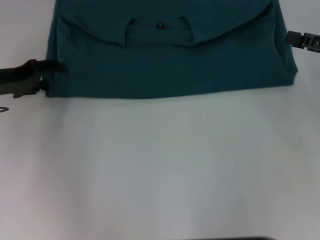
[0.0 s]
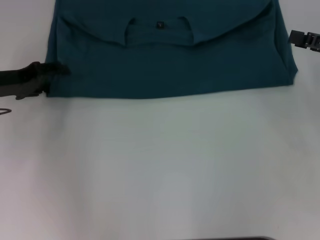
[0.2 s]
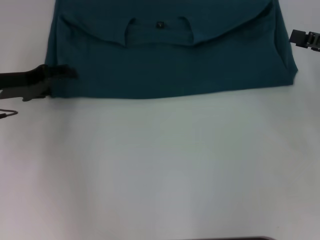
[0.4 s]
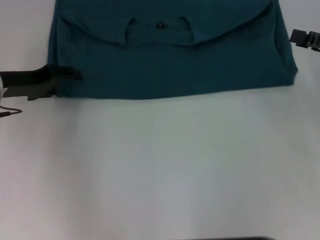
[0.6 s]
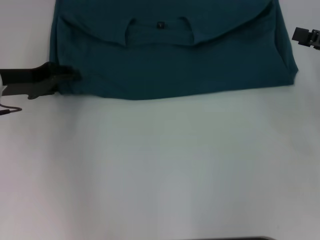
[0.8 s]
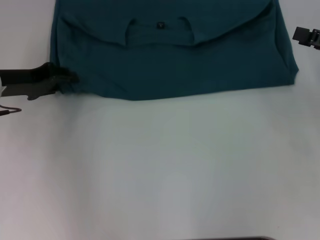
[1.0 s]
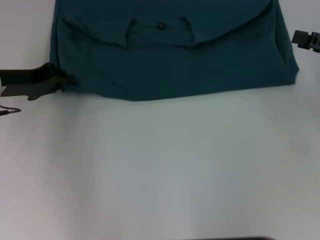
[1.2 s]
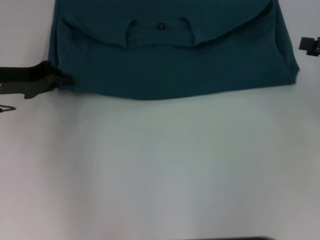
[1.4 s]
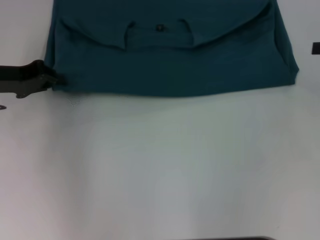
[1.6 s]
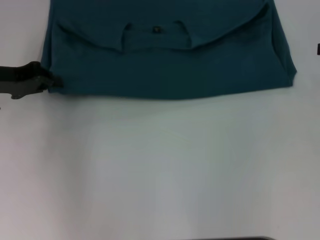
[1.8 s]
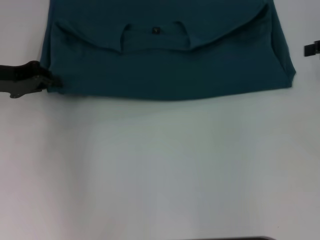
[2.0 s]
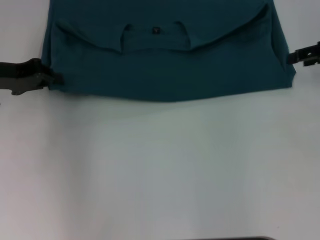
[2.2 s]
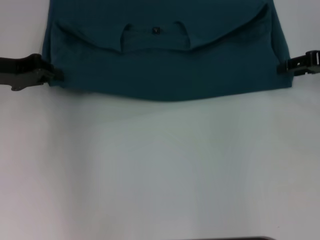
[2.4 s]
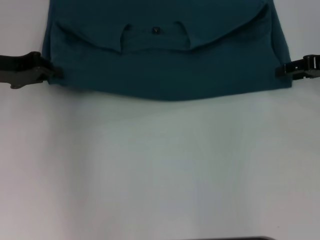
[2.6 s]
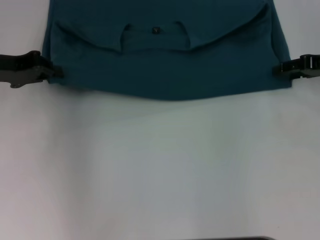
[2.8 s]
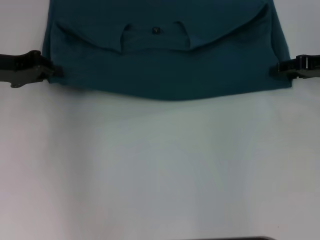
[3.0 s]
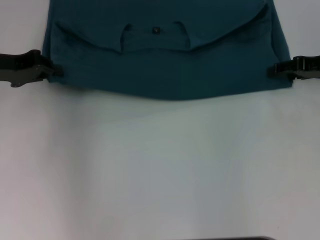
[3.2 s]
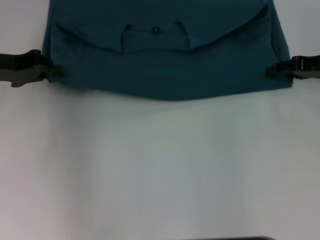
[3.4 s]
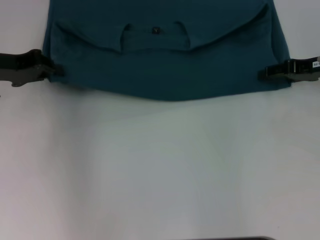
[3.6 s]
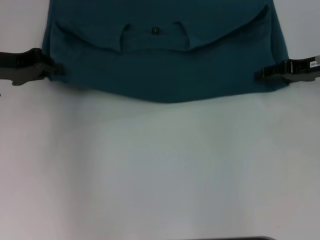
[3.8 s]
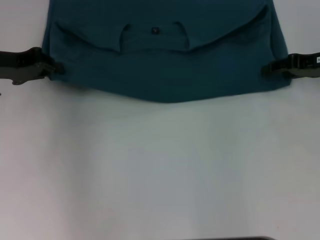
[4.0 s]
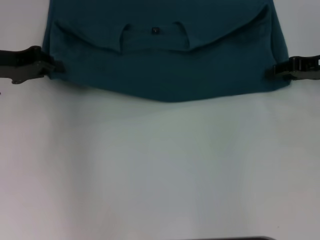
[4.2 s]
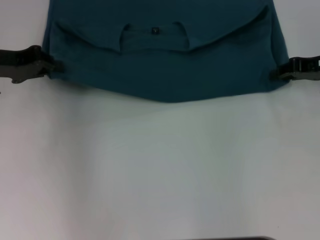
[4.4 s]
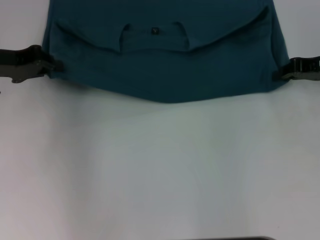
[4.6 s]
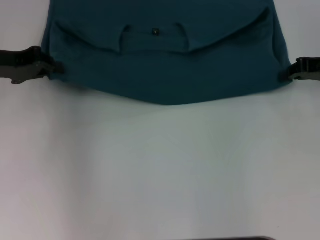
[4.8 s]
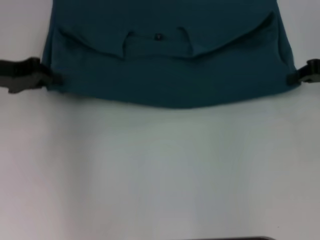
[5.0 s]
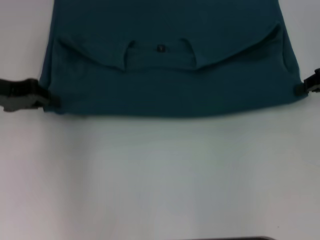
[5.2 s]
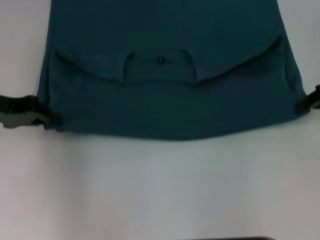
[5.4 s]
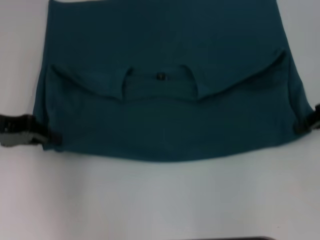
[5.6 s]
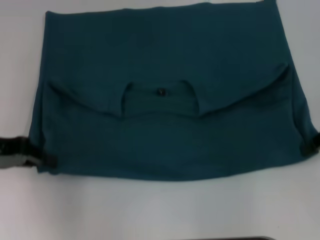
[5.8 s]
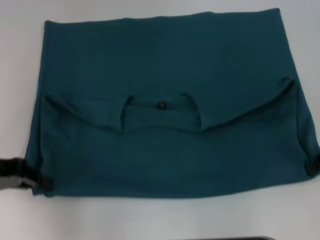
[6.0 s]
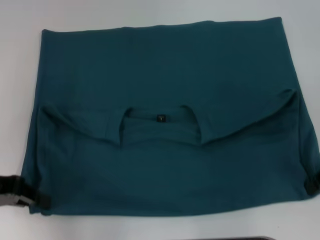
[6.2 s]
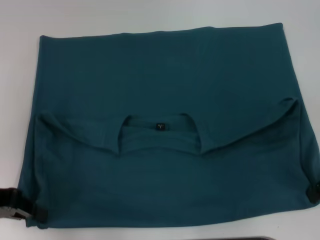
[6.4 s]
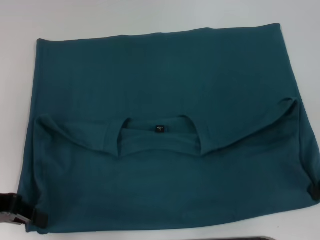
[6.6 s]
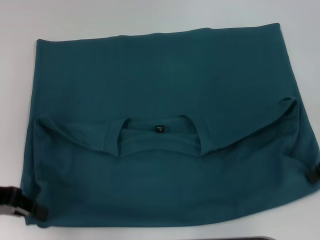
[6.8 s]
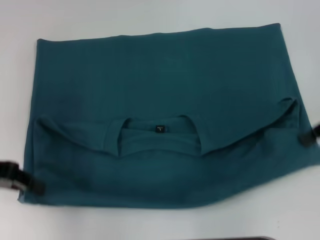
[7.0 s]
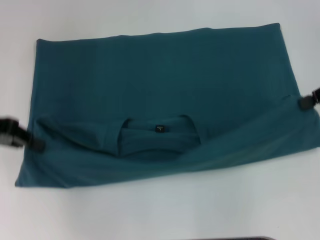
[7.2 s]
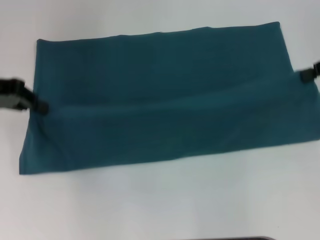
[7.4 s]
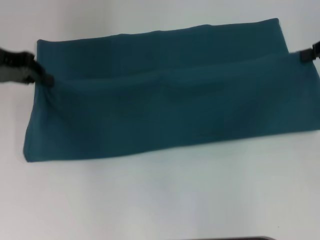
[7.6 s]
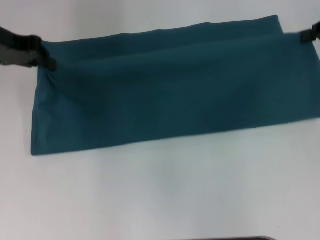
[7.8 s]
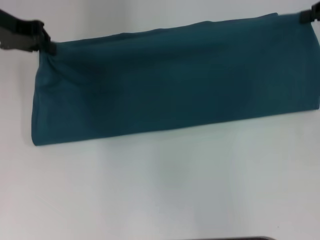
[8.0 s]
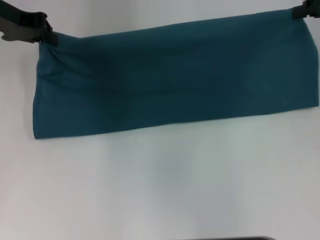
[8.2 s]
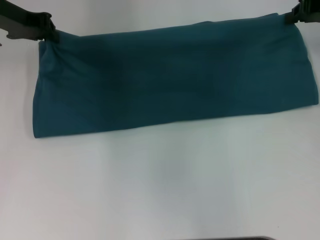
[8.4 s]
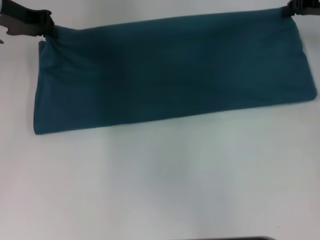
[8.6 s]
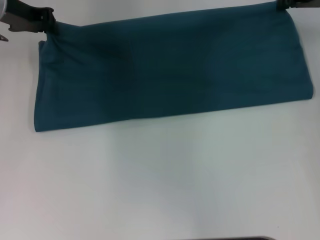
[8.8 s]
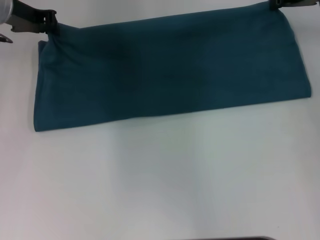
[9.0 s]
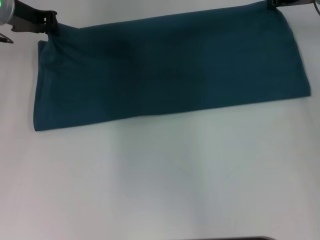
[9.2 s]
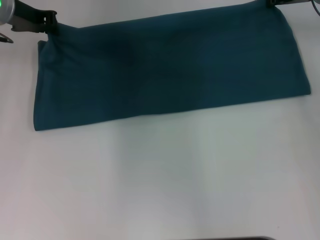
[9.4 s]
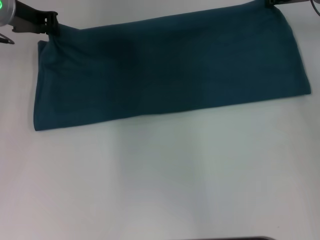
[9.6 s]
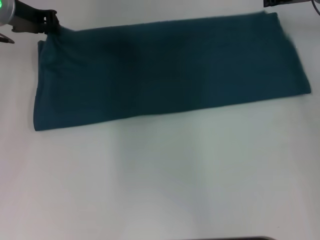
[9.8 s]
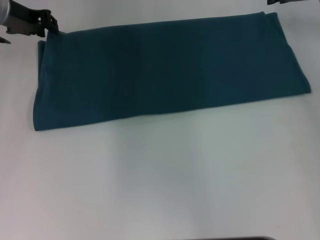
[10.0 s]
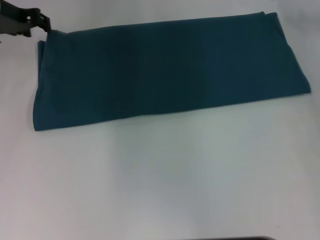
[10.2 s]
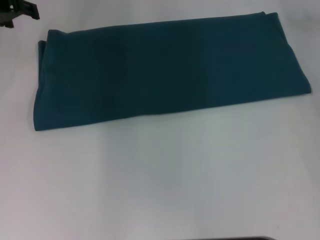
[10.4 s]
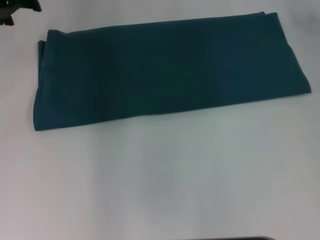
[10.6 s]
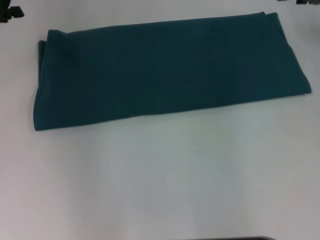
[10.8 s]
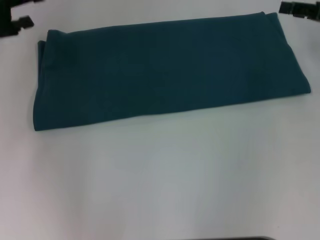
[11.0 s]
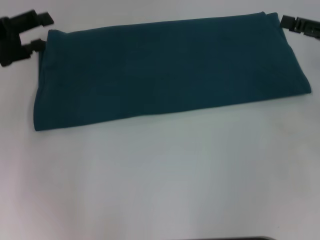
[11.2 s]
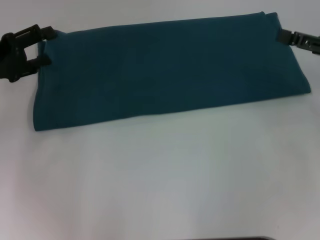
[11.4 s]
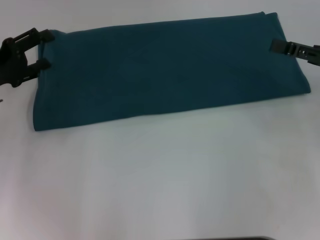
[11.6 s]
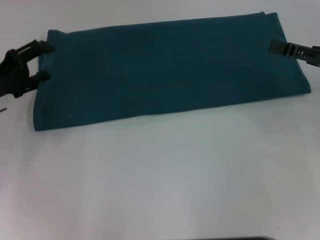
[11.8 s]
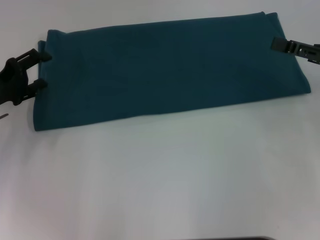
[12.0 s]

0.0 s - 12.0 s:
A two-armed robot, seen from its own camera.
Step, 0.0 s - 6.4 s: Pull the clothes with your left hand.
Step, 0.0 s - 6.4 s: Pull the clothes with your right hand.
Step, 6.6 s - 10.2 s: Fold the clothes to the right.
0.0 s - 1.6 s: The left gripper closes its fingers. Meanwhile the right gripper ends up roughly 5 cm from where it was.
1.6 s - 3.0 s: The right gripper is displaced to the left by roughly 5 cm.
3.0 s - 4.4 s: The grippers make only small movements.
4.4 s - 6.0 s: Both grippers travel together backward, roughly 10 cm.
6.0 s - 7.6 s: The two grippers go roughly 10 cm forward and upward.
7.6 s - 9.0 s: The left gripper heads forward, covering roughly 5 cm. Meanwhile the right gripper shifts some 10 cm forward and to the left.
9.0 s - 10.4 s: The left gripper opens up; the right gripper opens.
10.4 s - 12.0 s: The left gripper shifts some 20 cm backward and downward, and opens up. Meanwhile the right gripper heads backward, covering roughly 15 cm.

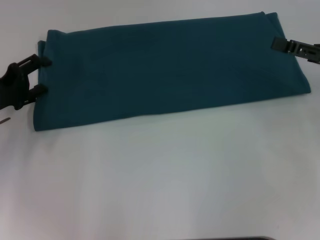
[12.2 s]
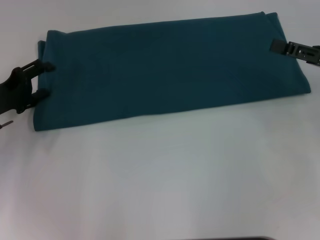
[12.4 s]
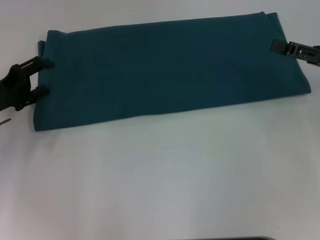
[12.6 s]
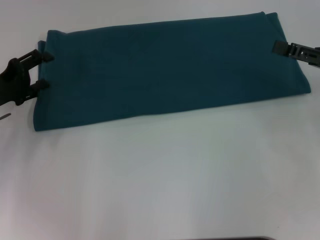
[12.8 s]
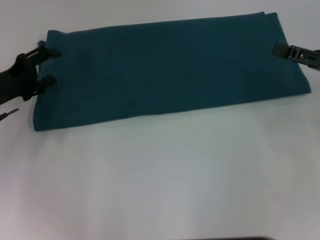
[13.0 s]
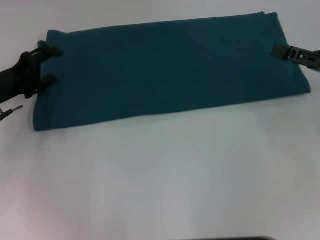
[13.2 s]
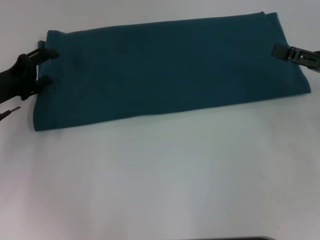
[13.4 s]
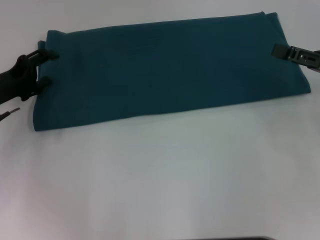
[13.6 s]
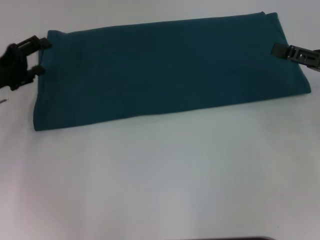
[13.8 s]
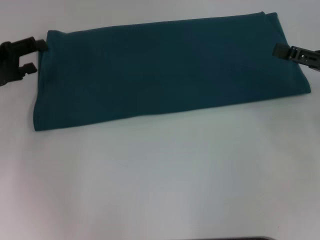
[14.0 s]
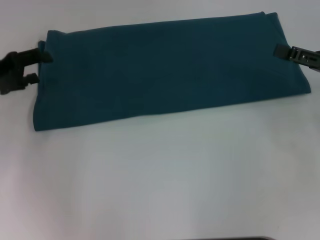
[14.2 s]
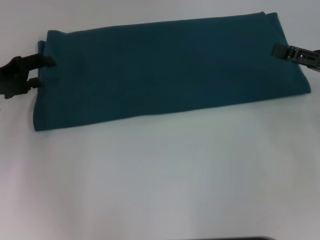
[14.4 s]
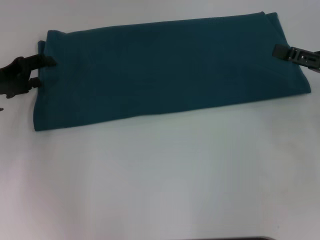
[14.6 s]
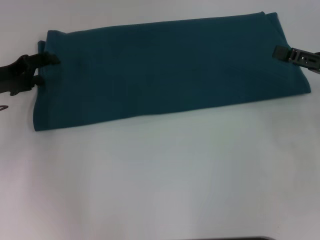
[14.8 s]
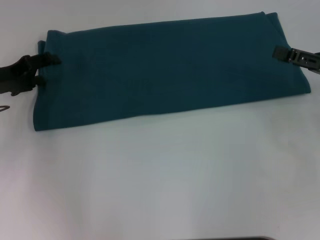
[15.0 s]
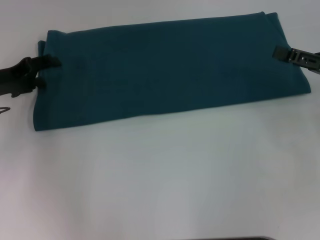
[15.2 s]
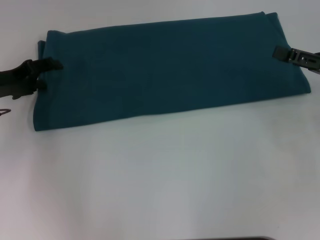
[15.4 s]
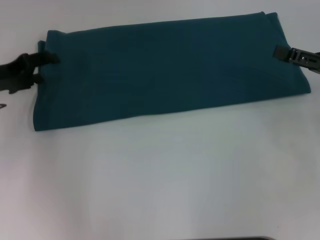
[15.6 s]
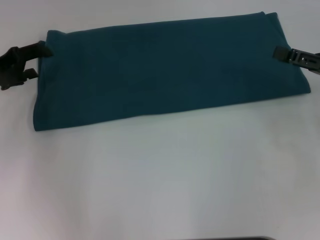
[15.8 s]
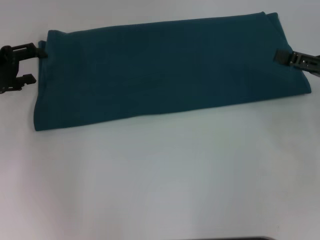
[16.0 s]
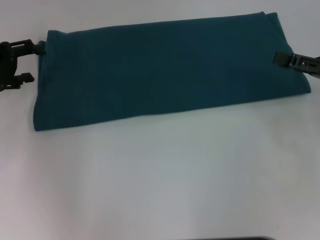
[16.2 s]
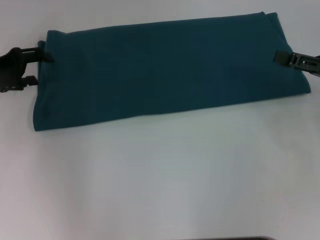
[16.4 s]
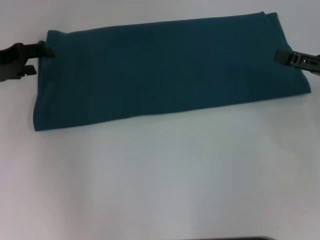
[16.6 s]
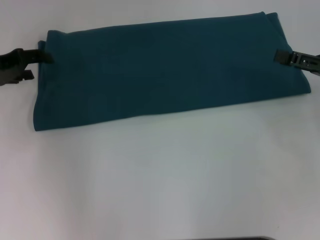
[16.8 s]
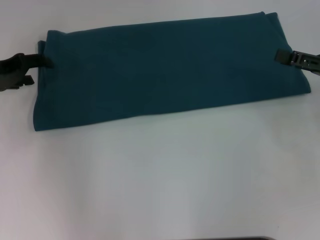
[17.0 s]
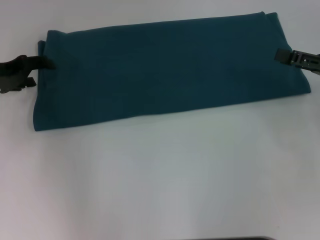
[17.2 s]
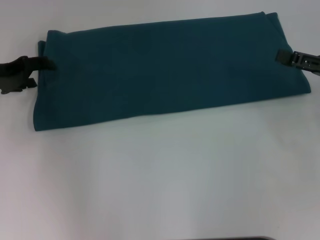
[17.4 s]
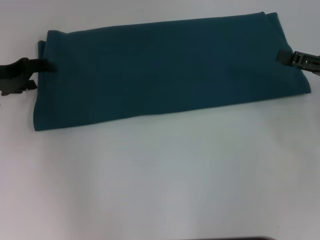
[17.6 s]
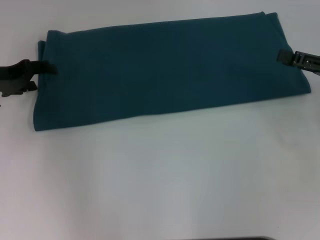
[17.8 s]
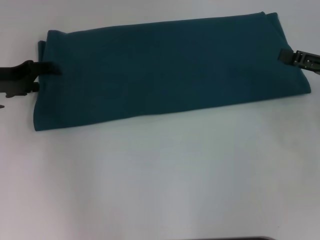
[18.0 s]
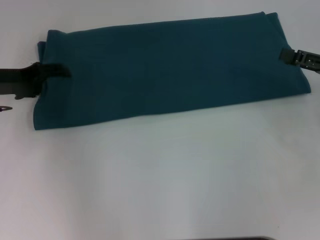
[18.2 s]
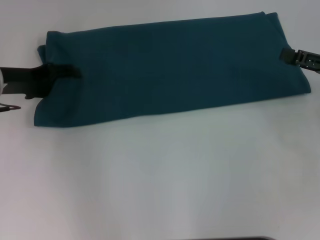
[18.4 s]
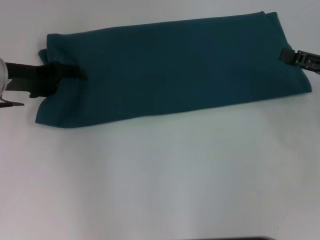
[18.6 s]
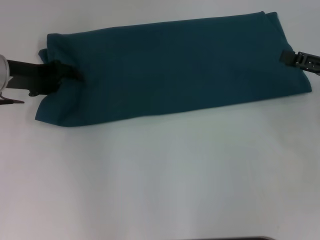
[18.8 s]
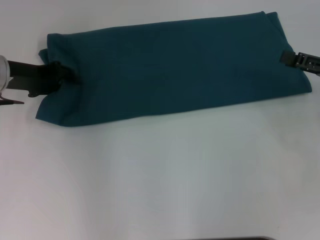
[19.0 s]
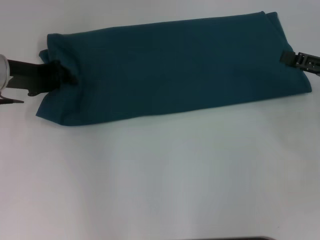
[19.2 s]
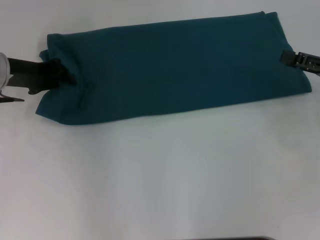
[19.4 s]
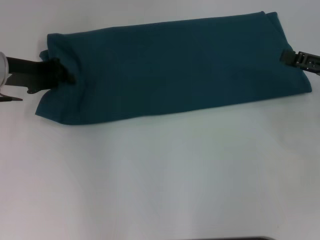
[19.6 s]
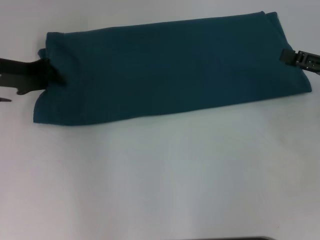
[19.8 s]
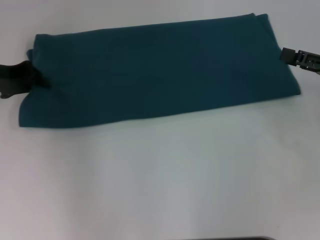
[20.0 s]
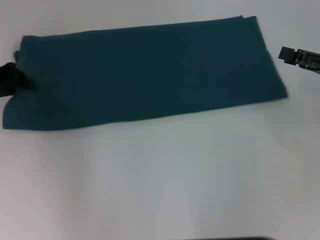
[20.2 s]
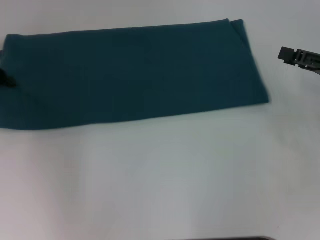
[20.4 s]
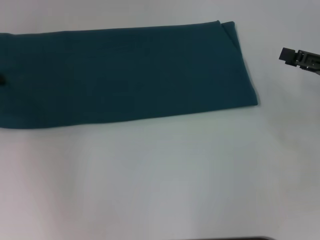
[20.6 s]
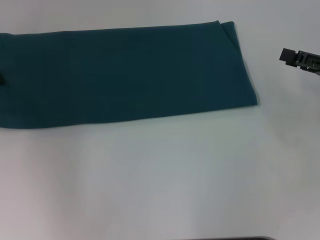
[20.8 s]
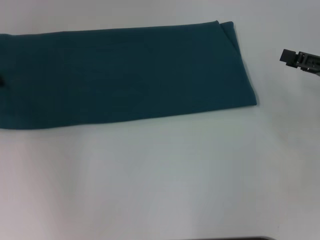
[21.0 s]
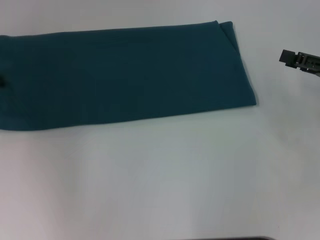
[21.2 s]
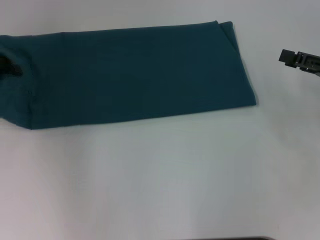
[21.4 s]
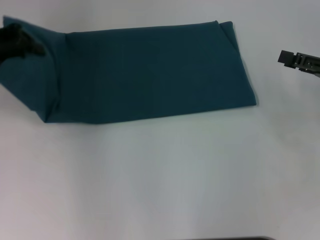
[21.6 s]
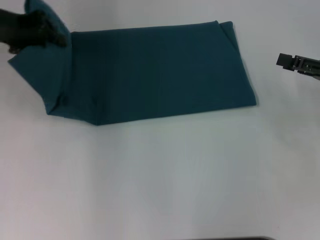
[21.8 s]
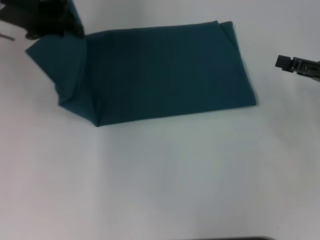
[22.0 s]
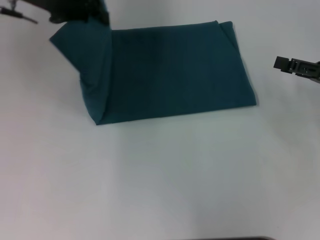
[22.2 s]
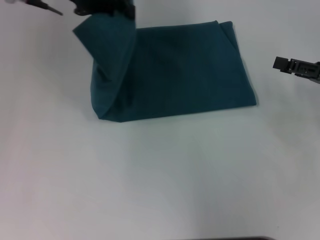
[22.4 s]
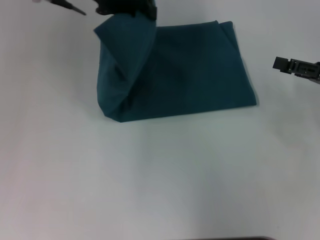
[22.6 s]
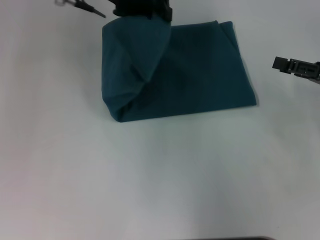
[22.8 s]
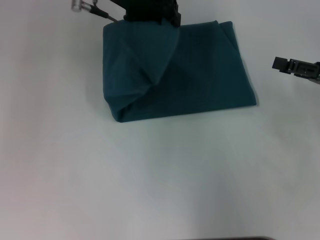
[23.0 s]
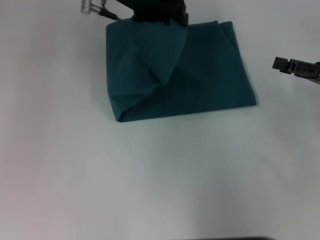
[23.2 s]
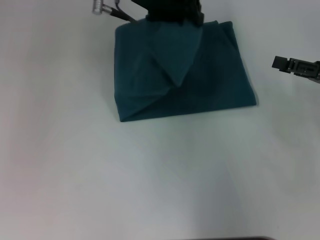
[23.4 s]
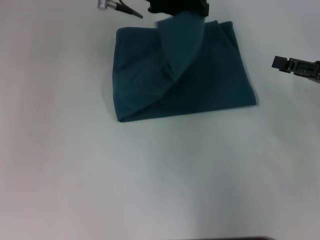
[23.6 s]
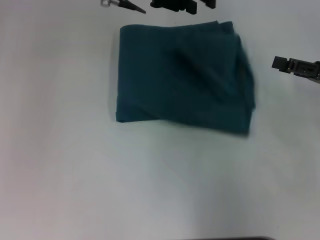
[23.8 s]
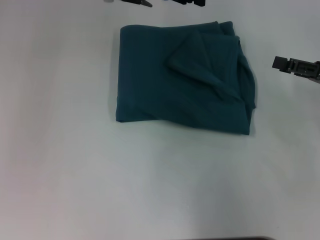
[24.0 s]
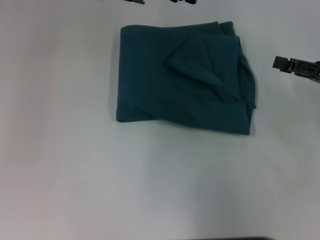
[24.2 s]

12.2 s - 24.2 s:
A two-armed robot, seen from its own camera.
Step, 12.2 s - 23.8 s: Fold the clothes to the left.
12.2 s - 13.8 s: There are only small adjustments of the grippers.
13.8 s - 15.2 s: There are only small adjustments of the grippers.
15.2 s - 18.2 s: There are only small adjustments of the grippers.
18.2 s - 19.8 s: The left gripper closes.
19.8 s - 21.2 s: The left gripper is displaced to the left by roughly 10 cm.
21.2 s - 22.6 s: The left gripper shifts approximately 25 cm to the right and upward.
22.6 s - 24.2 s: The left gripper heads to the right, covering some 5 cm, and opens.
